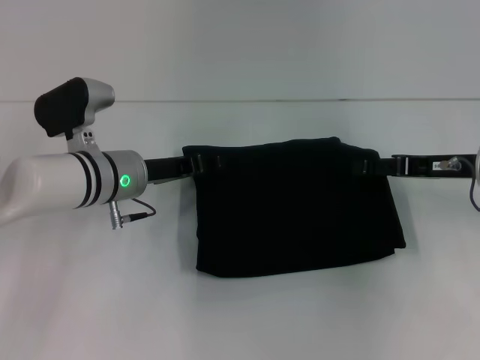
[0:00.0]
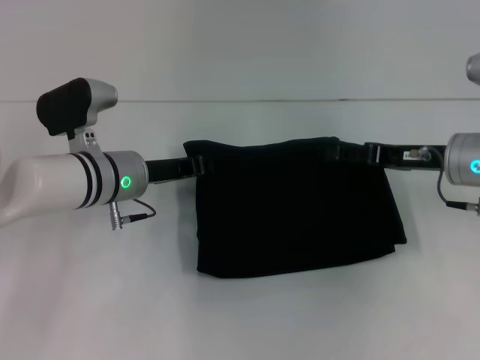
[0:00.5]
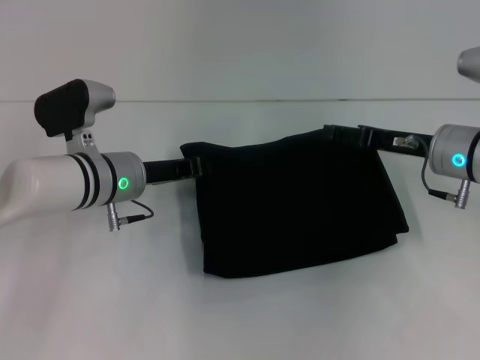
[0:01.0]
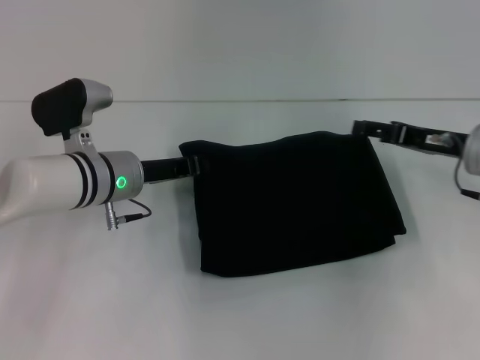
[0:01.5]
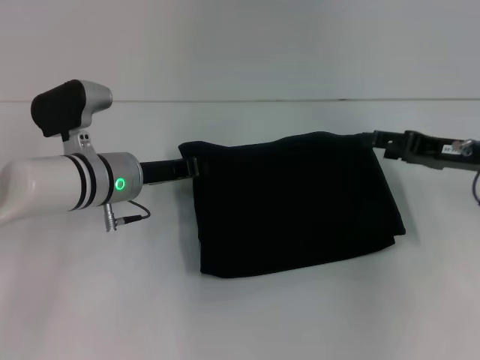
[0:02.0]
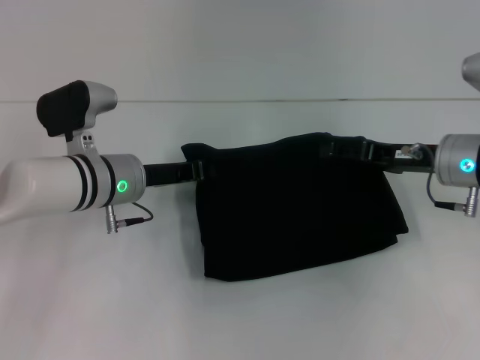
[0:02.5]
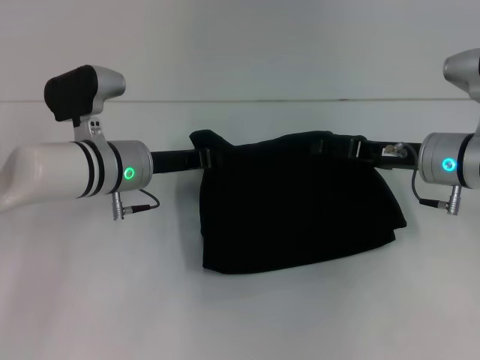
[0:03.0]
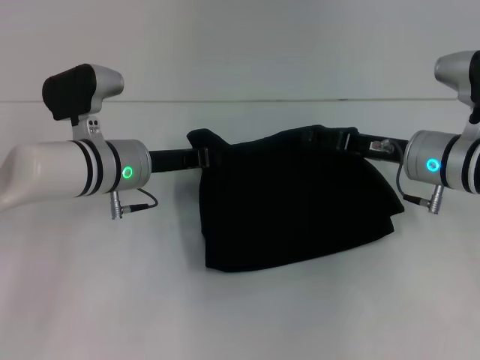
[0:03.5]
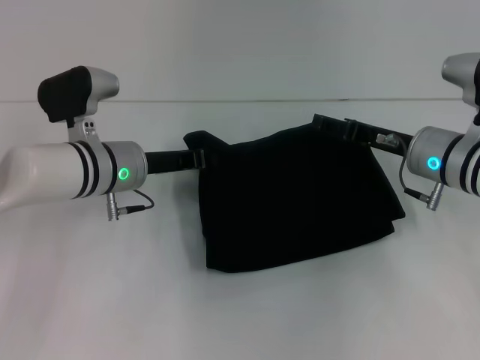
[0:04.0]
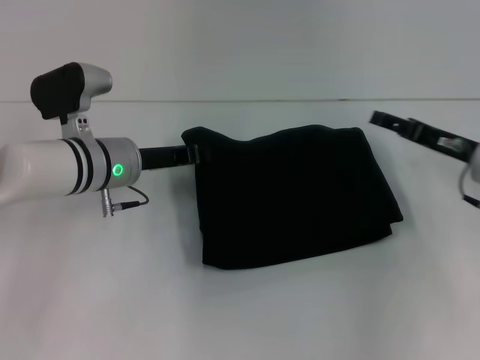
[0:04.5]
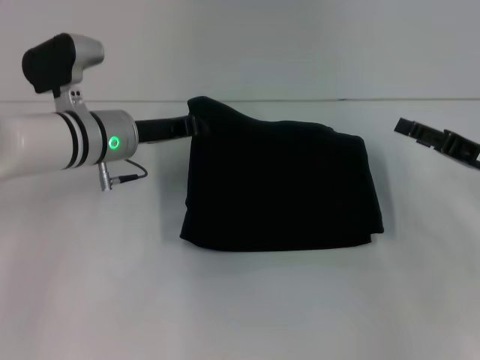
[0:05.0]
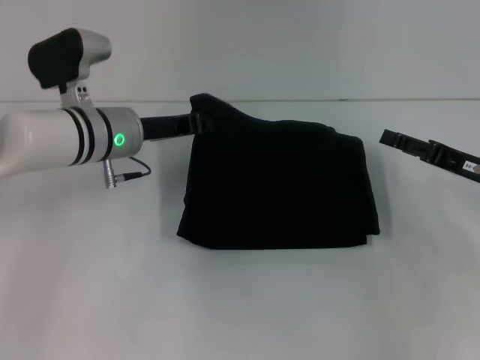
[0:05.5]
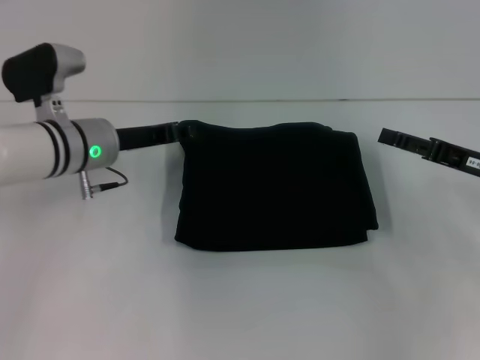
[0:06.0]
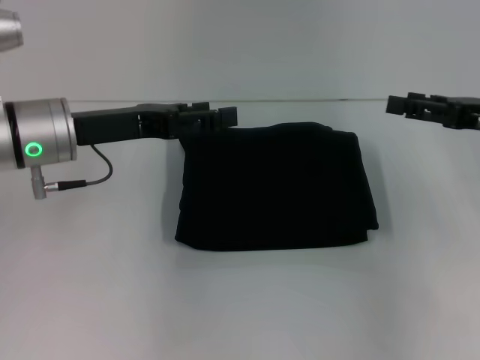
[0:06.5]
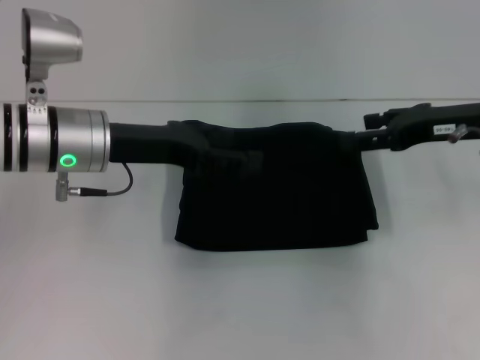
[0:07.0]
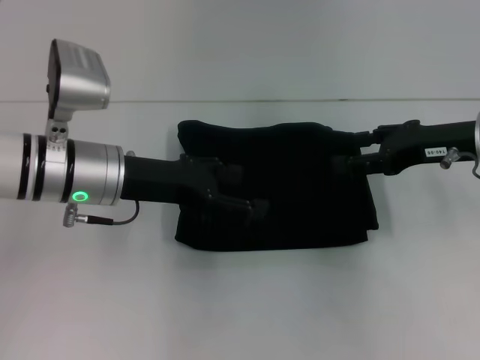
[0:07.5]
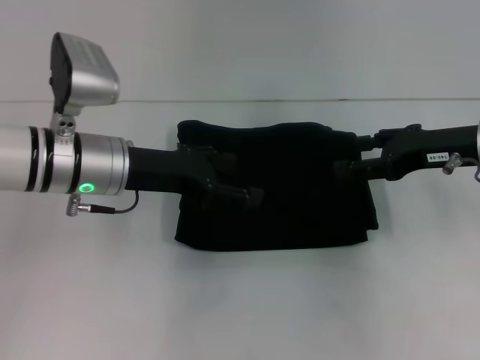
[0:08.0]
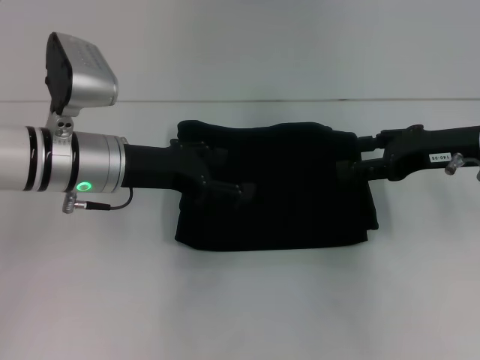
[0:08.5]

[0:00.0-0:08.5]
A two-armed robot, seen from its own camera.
0:00.0 to 0:02.0: The left gripper closes its fingers.
0:02.0 to 0:04.0: The right gripper travels to the left by approximately 5 cm.
0:04.0 to 0:06.5: The right gripper shifts roughly 15 cm to the right and upward, while the left gripper goes some 10 cm upward, and opens.
0:06.5 to 0:08.5: The right gripper is displaced to the left by some 5 cm.

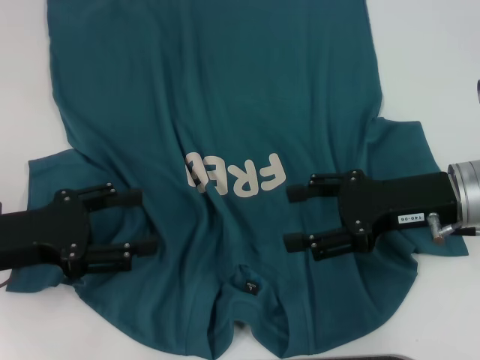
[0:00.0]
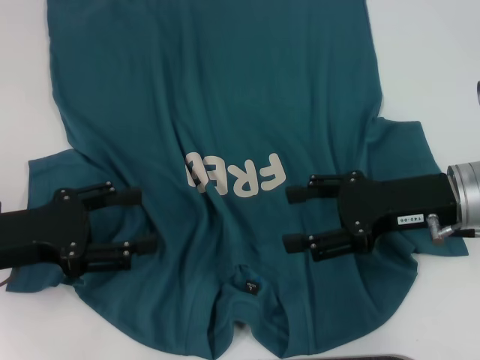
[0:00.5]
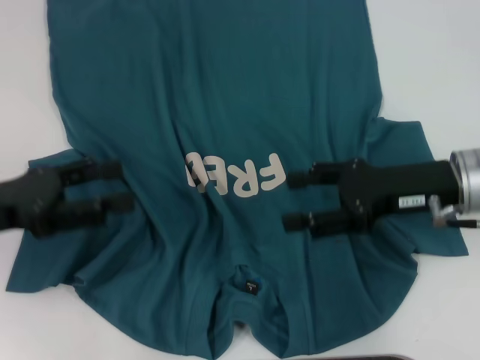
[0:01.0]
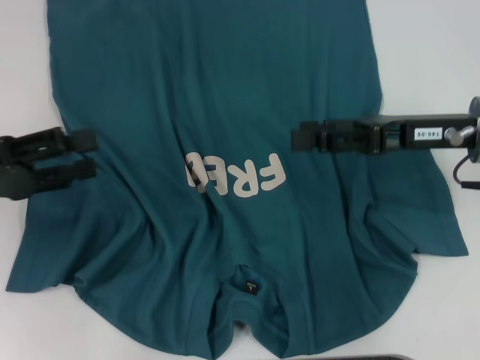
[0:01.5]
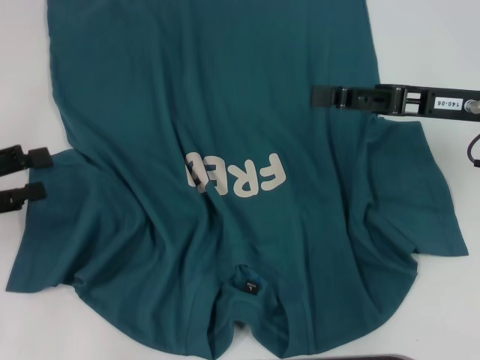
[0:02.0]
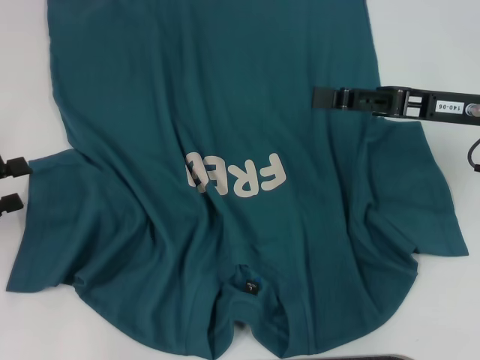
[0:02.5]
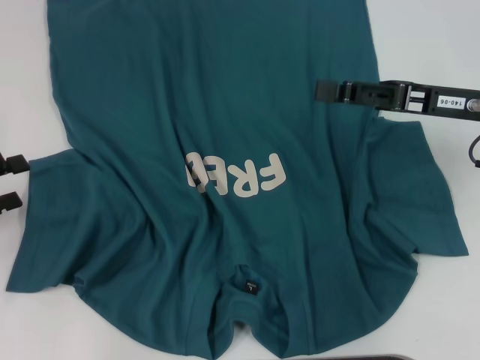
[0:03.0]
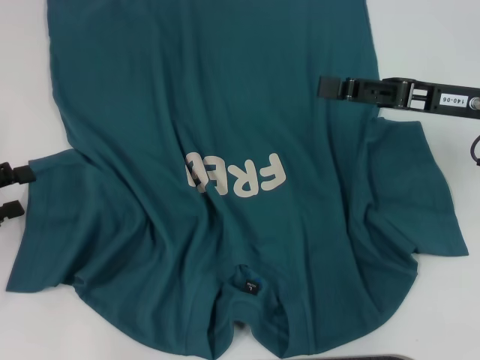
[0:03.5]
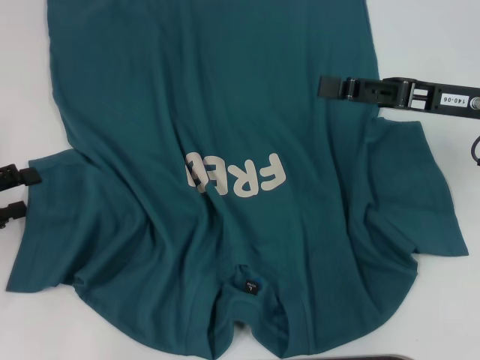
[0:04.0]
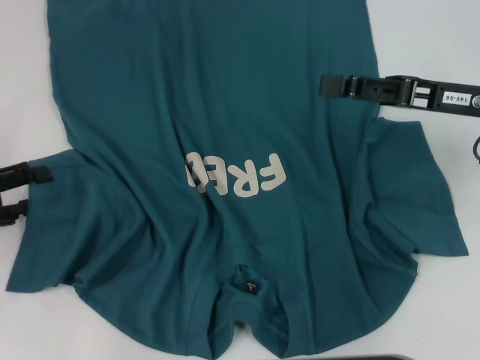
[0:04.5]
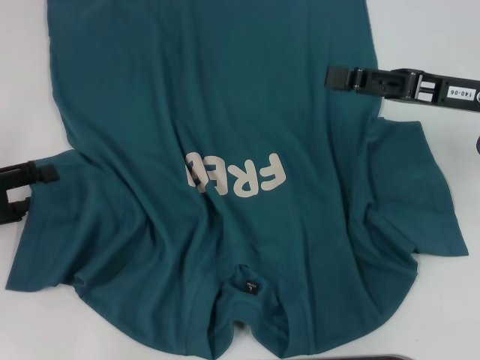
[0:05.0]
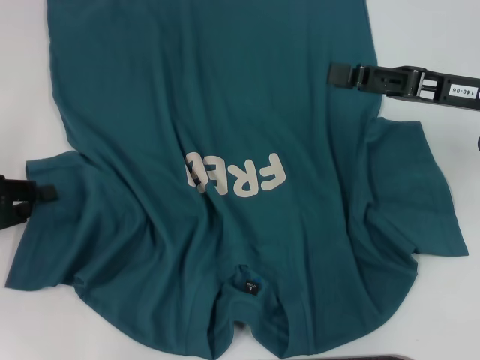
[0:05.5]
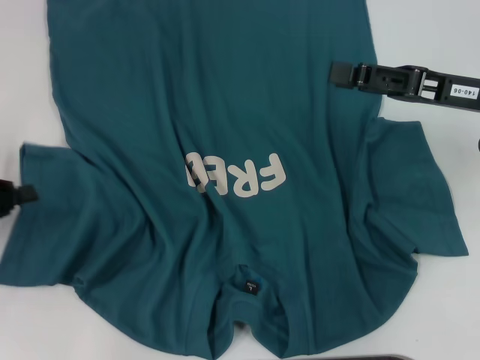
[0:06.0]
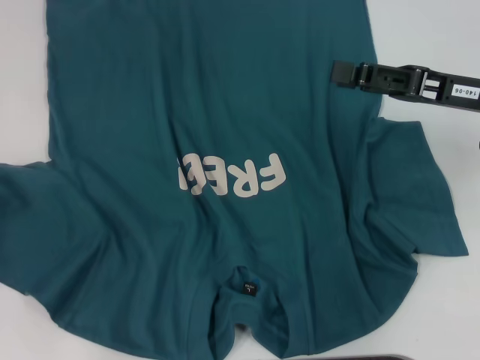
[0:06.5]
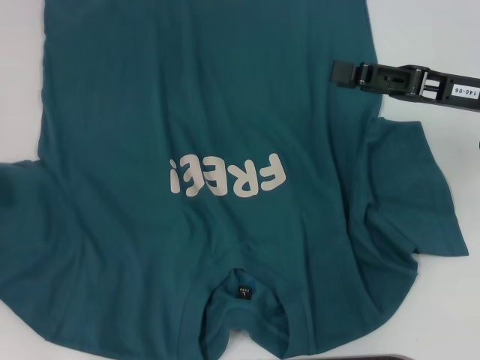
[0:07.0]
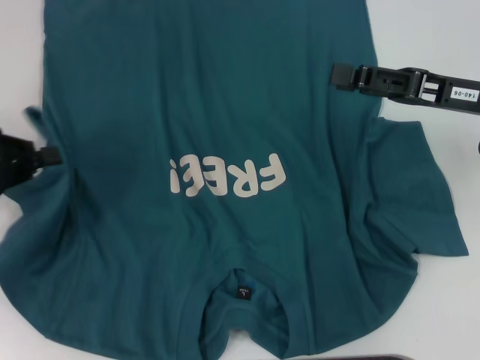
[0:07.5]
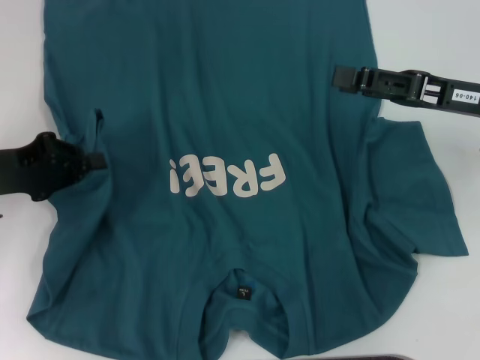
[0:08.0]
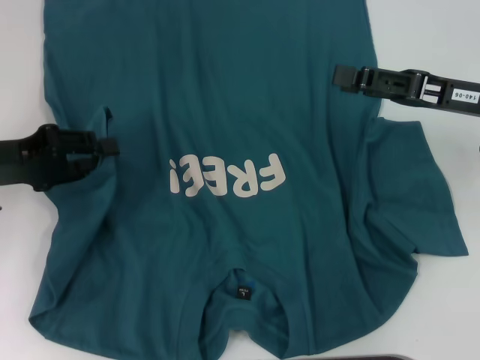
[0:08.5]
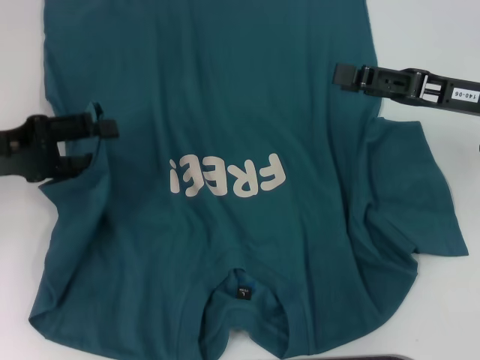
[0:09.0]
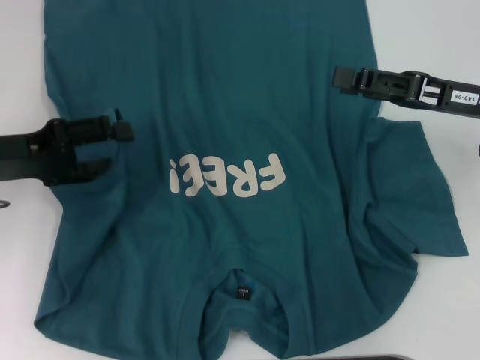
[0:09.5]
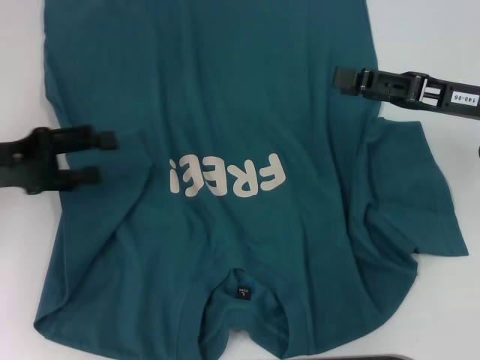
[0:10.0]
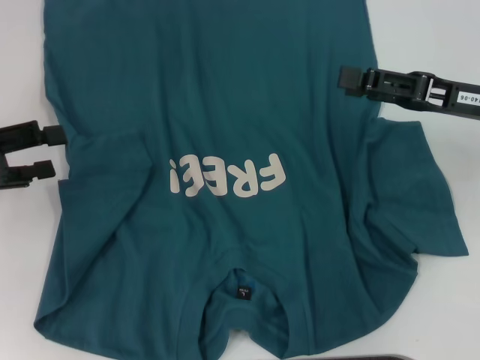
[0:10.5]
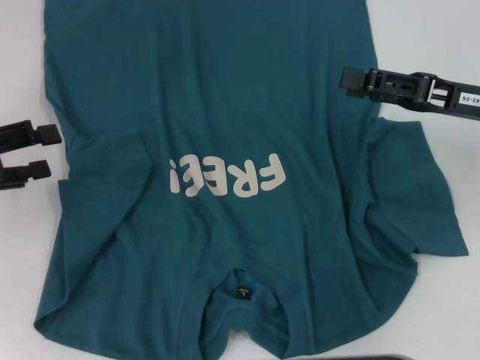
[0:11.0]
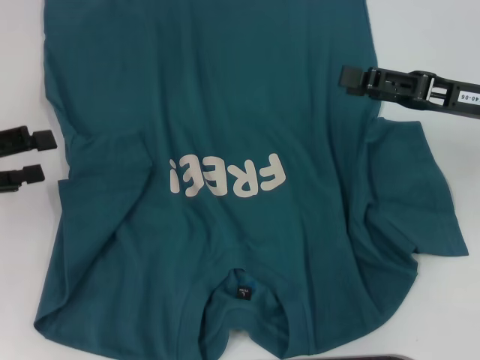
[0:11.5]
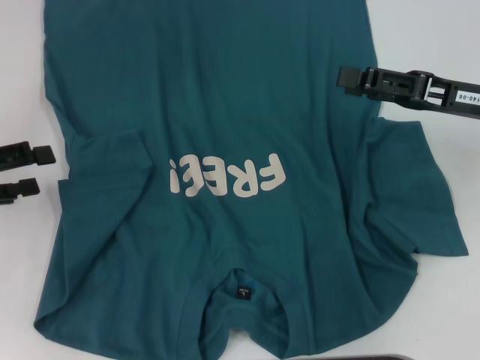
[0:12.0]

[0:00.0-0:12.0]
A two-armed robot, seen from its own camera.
0:00.0 to 0:02.0: The left gripper travels to the left by about 10 cm. Meanwhile the right gripper moves roughly 5 cm.
0:02.0 to 0:04.0: There are only small adjustments of the grippers.
0:04.0 to 0:06.0: The left gripper closes up.
0:06.0 to 0:08.0: The left gripper shifts approximately 5 cm to the right.
0:08.0 to 0:10.0: The left gripper opens its fingers.
0:10.0 to 0:12.0: The left gripper goes about 5 cm to the left.

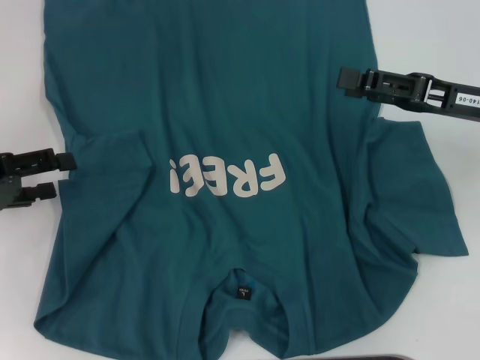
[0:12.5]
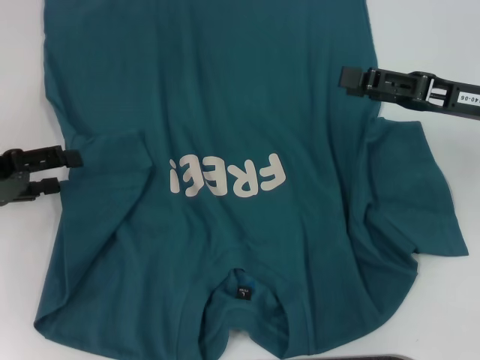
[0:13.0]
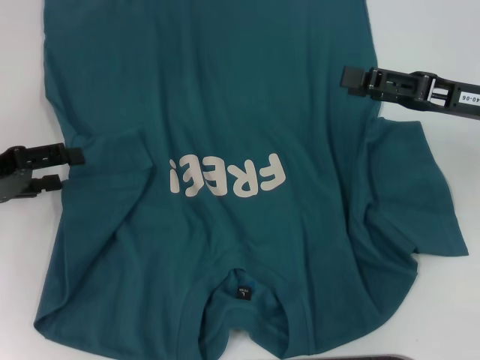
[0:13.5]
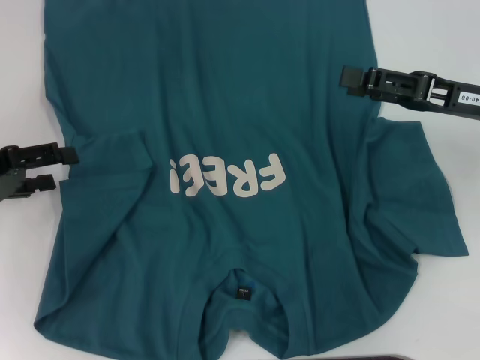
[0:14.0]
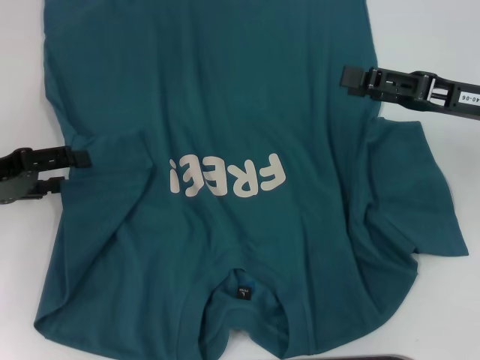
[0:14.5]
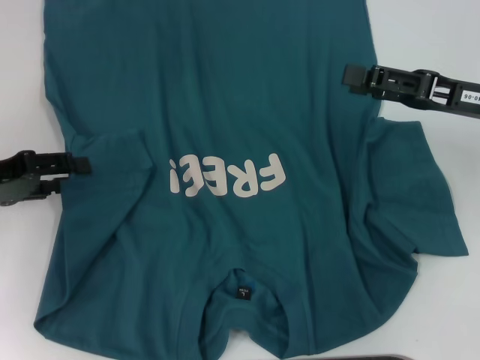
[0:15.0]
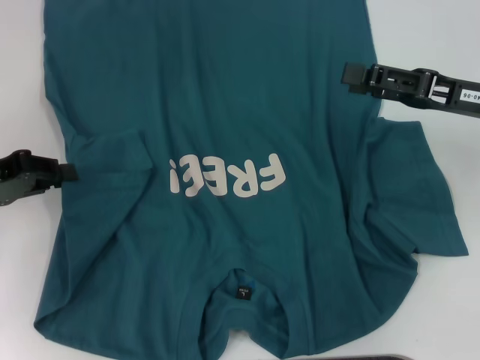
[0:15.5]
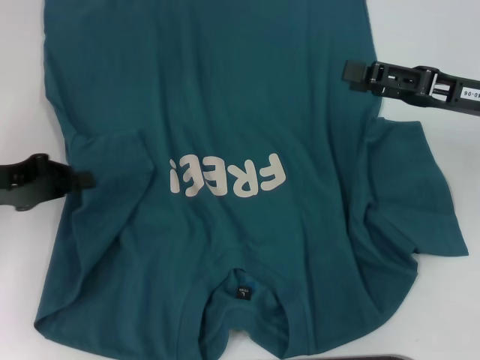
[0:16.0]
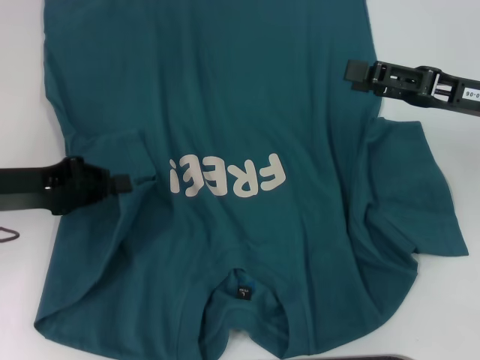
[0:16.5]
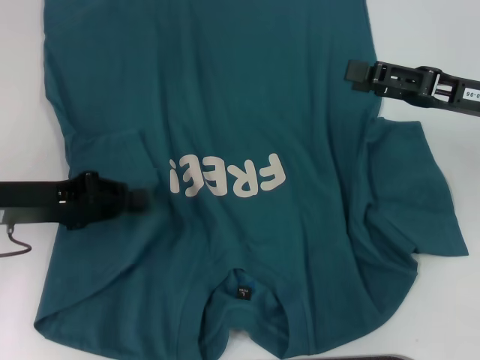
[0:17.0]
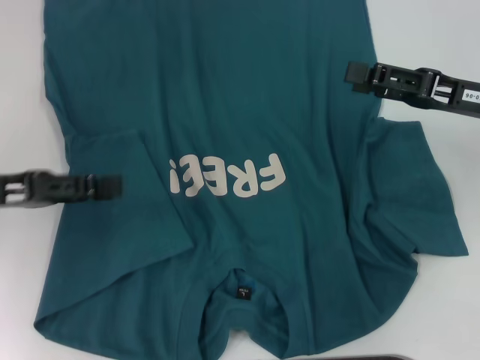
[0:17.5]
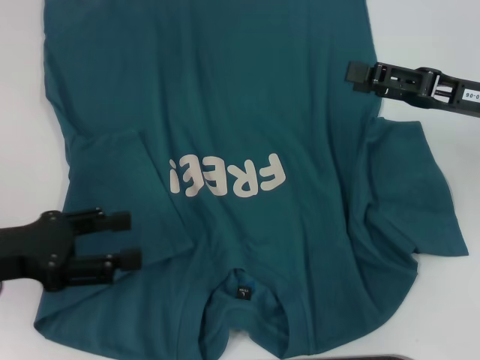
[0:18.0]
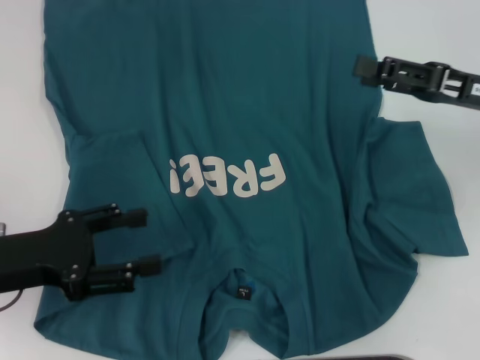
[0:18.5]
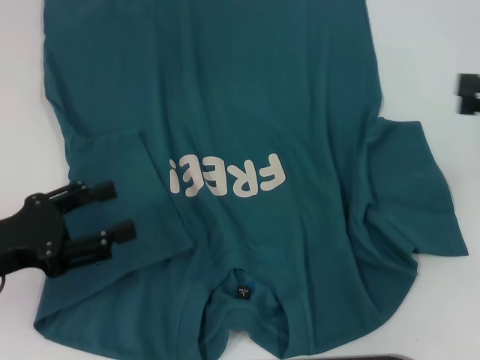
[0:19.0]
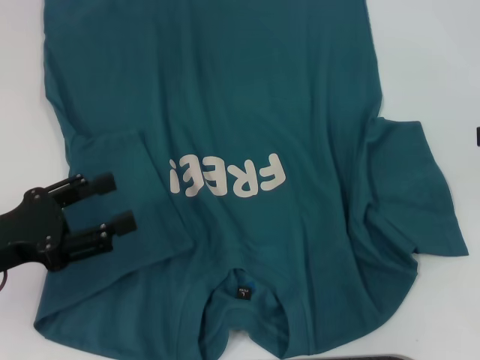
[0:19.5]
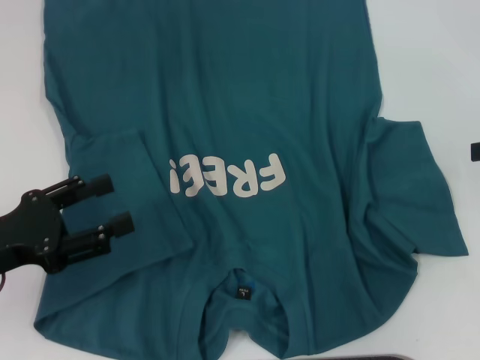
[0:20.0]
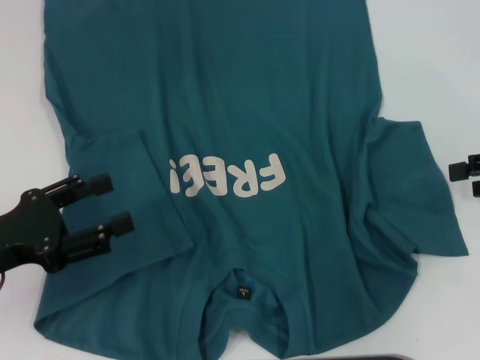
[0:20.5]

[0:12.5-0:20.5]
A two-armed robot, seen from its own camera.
Step, 0:12.5 to 0:17.5: Fold the bottom left sleeve with your left hand.
0:12.5 to 0:14.5: There are only small adjustments of the grippers.
0:14.5 to 0:16.5: The left gripper closes.
0:16.5 to 0:18.5: The left gripper moves backward, about 5 cm, and opens its fingers.
0:18.5 to 0:20.5: The right gripper goes roughly 10 cm to the right.
